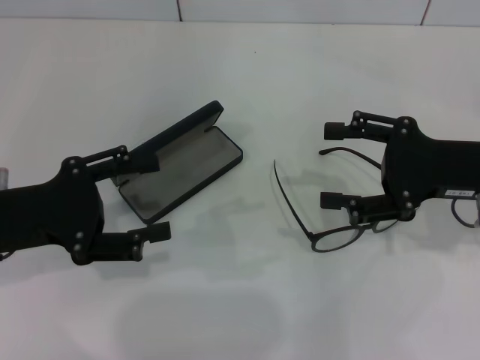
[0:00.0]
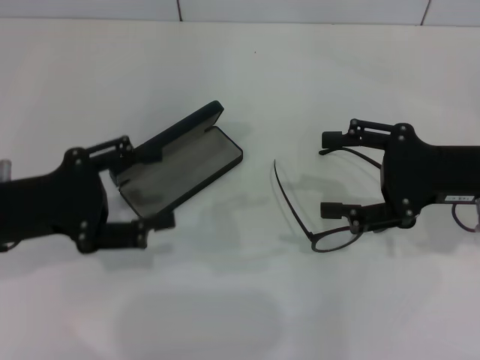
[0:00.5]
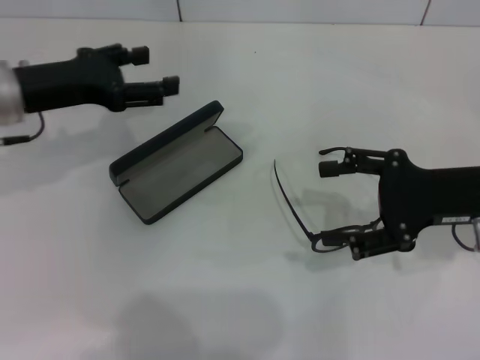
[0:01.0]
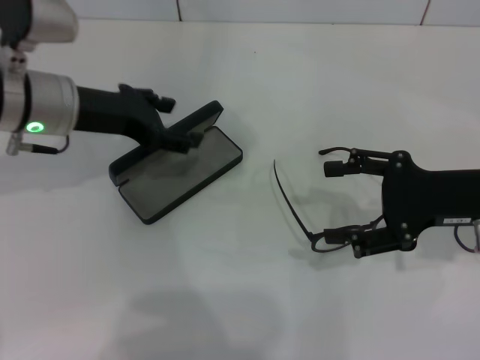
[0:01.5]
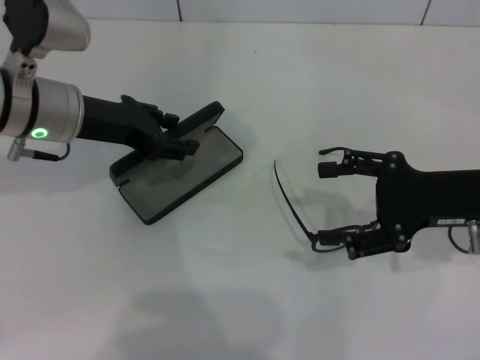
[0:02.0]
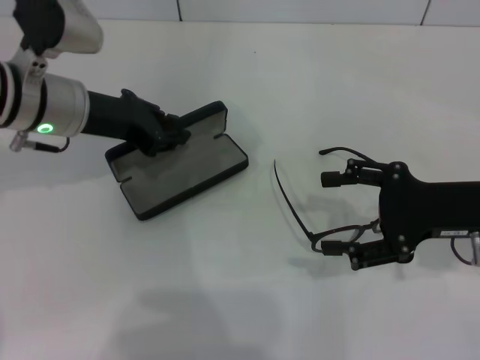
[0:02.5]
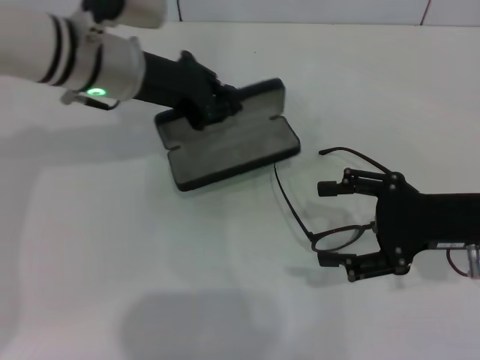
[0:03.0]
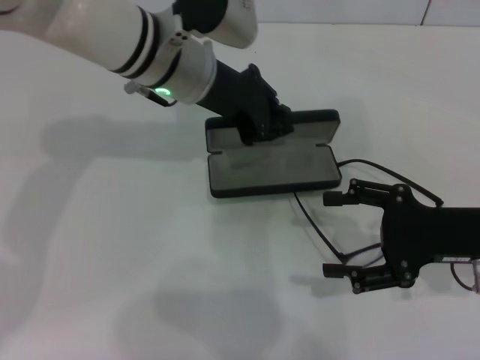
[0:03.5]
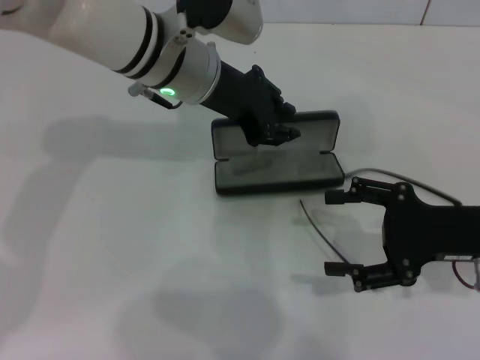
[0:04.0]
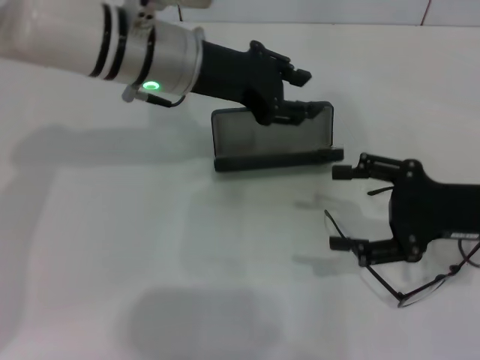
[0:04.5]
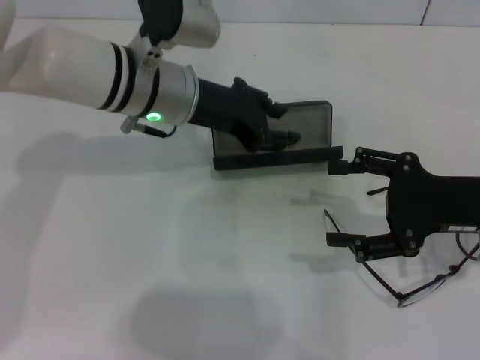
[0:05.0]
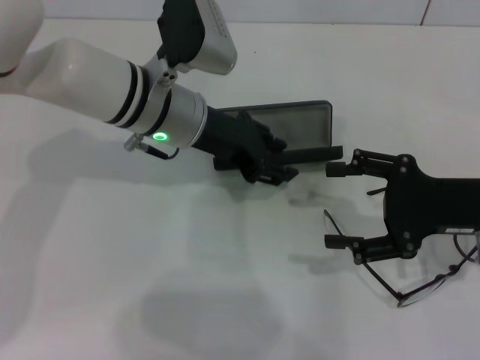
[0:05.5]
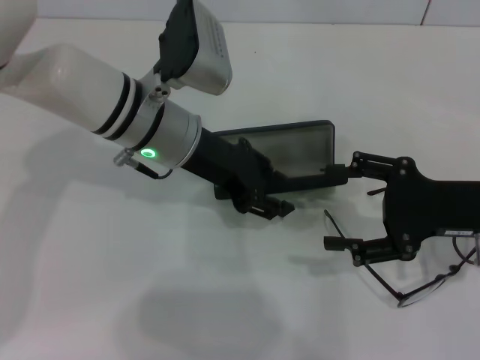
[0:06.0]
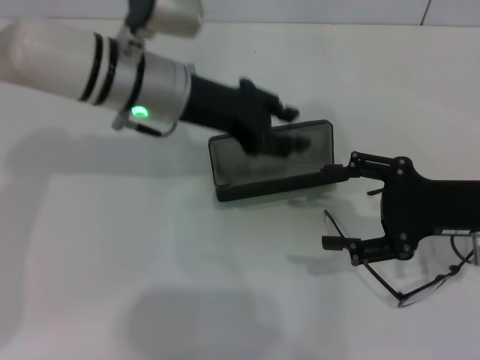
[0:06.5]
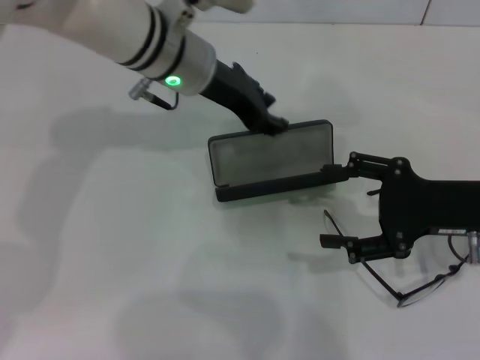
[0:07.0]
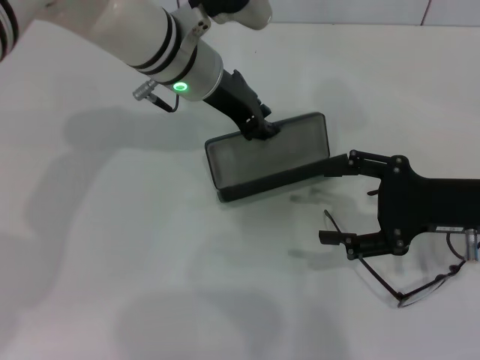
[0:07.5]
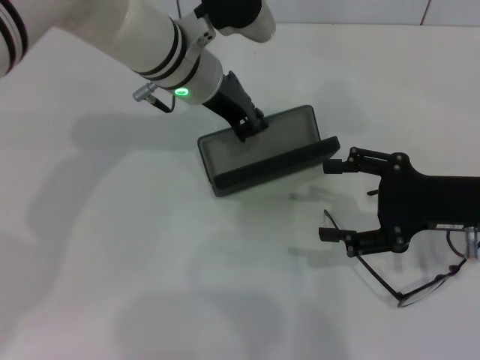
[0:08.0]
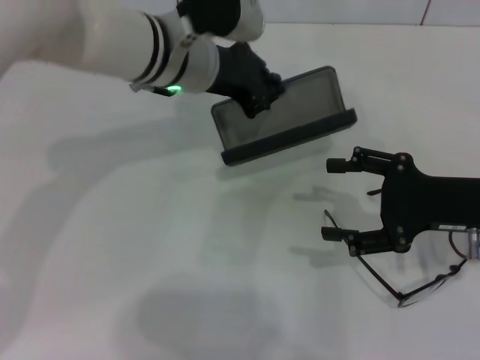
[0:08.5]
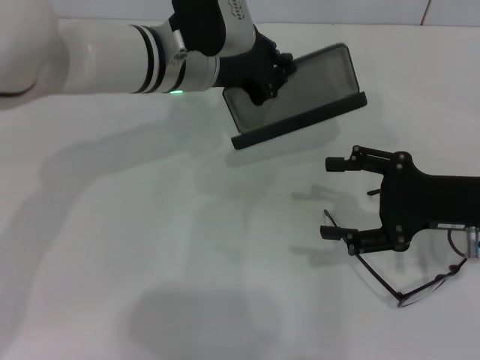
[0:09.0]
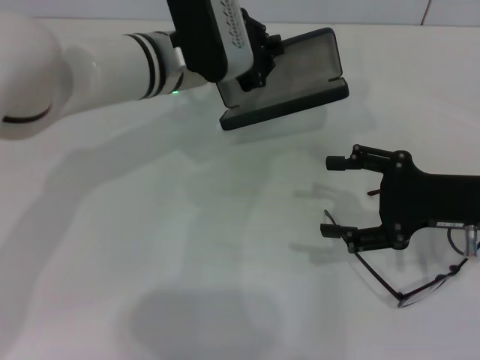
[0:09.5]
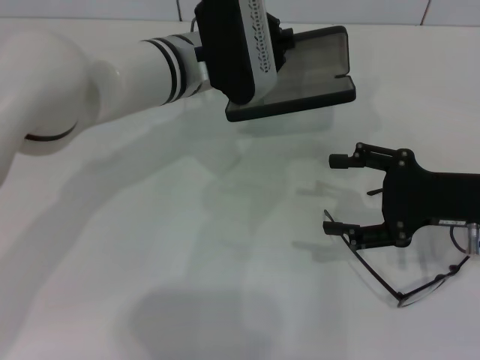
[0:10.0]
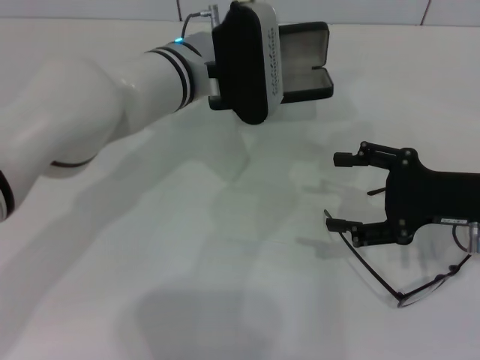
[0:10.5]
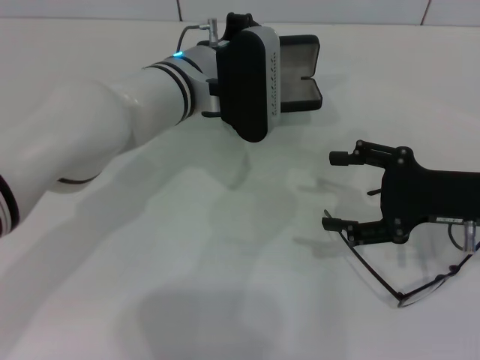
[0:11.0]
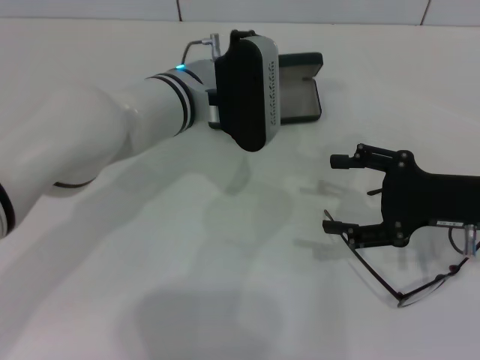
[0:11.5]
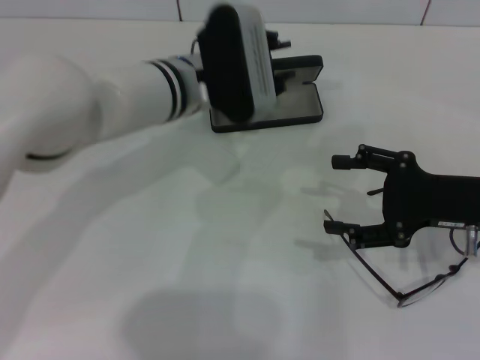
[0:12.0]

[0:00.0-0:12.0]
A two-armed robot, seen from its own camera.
Step, 0:00.0 to 0:02.0: Grab the glasses case with your left hand.
Step, 0:02.5 to 0:04.0: Place the glasses case in the center of the table with your left hand.
Step, 0:04.5 to 0:07.5: Grab the glasses case with your left hand.
Step, 0:08.0 to 0:11.5: Place the glasses case in the center of the table with your left hand.
0:00.0 to 0:02.0: The left gripper moves forward and to the right, about 15 cm.
0:02.0 to 0:04.0: The left gripper heads to the right, covering roughly 15 cm, and closes its fingers.
0:04.0 to 0:06.0: The left gripper ends up roughly 5 cm from where it was.
0:06.0 to 0:08.0: The left gripper is displaced forward by roughly 5 cm, and closes.
0:10.0 to 0:12.0: The left gripper opens.

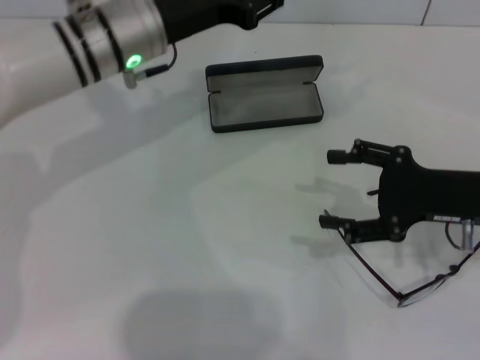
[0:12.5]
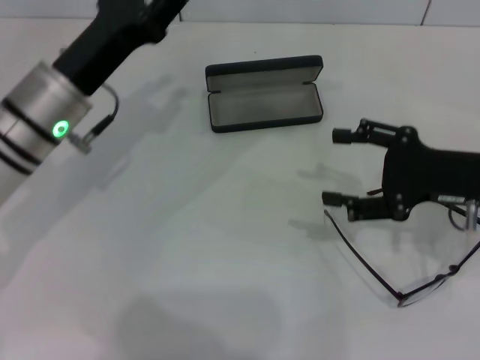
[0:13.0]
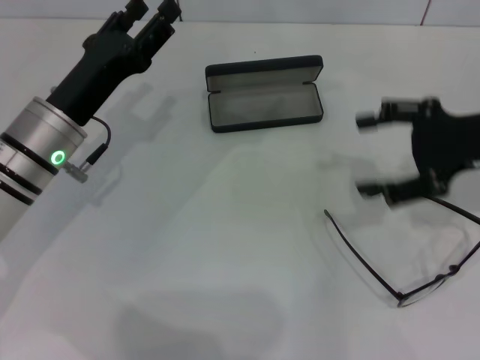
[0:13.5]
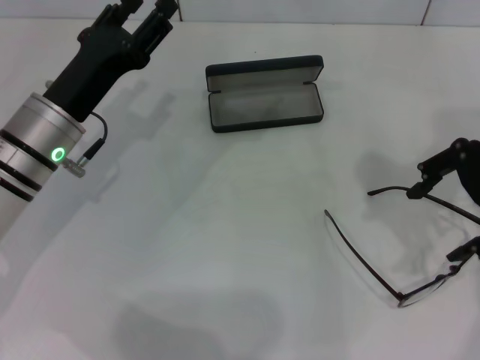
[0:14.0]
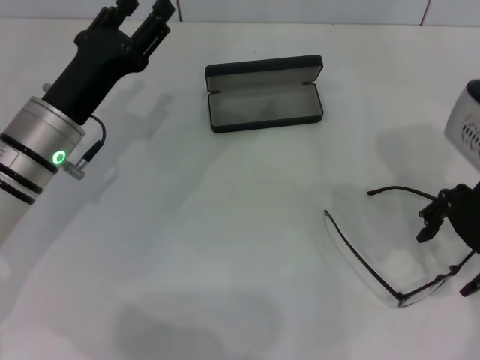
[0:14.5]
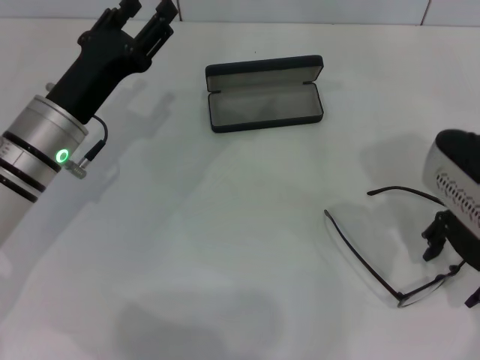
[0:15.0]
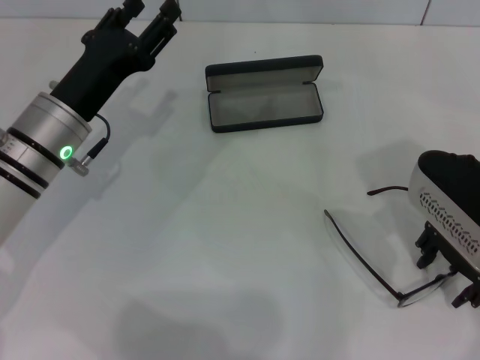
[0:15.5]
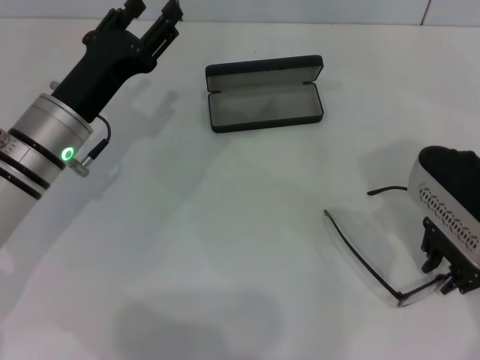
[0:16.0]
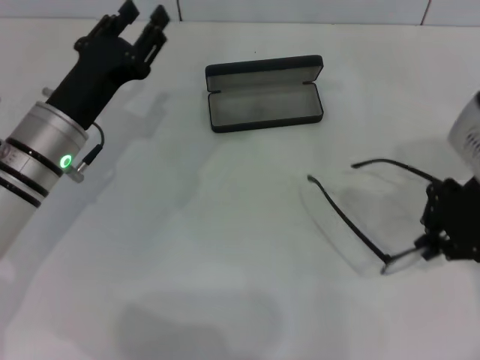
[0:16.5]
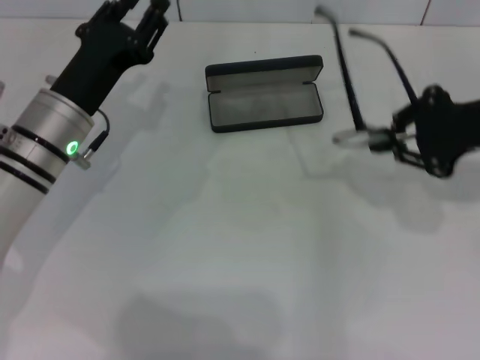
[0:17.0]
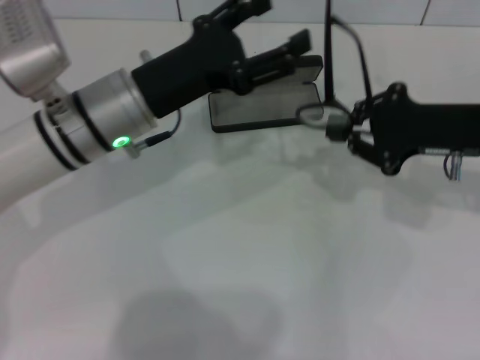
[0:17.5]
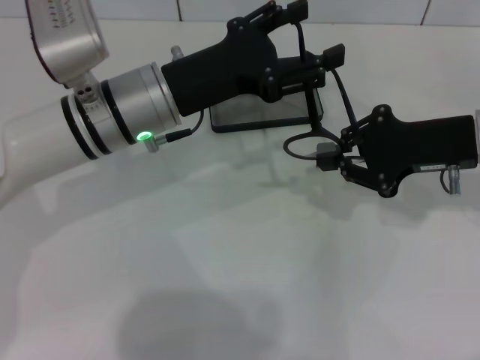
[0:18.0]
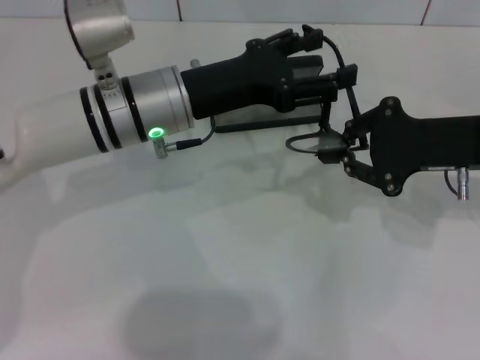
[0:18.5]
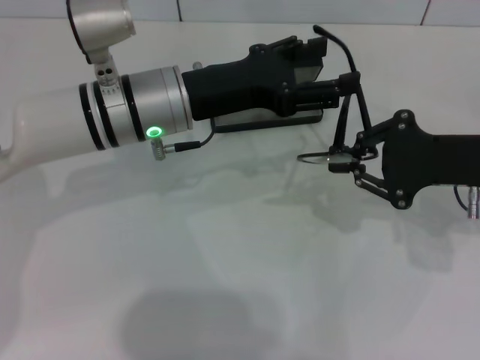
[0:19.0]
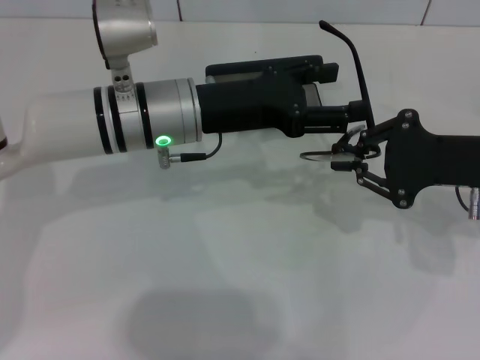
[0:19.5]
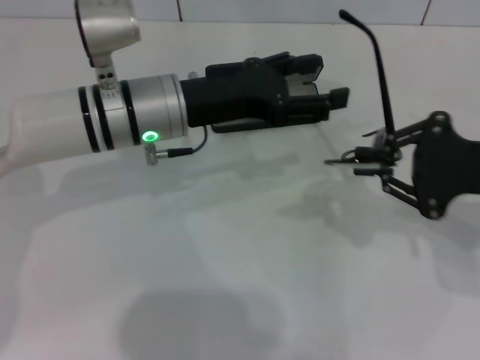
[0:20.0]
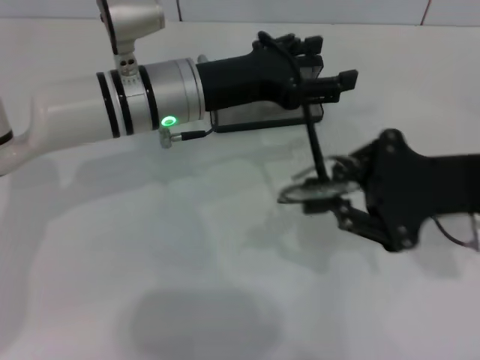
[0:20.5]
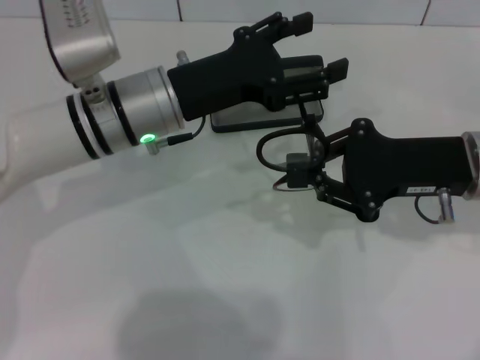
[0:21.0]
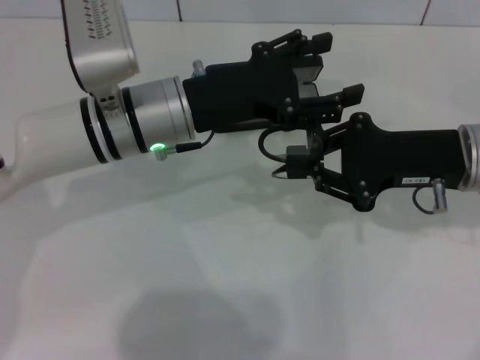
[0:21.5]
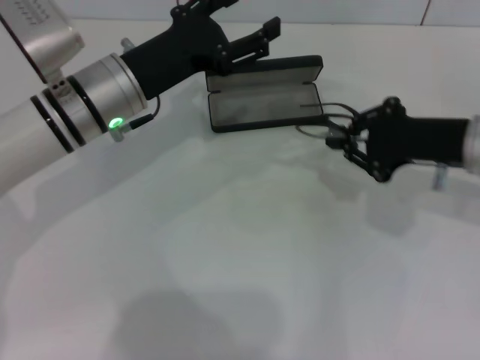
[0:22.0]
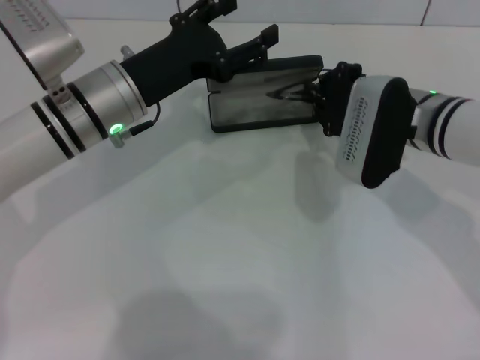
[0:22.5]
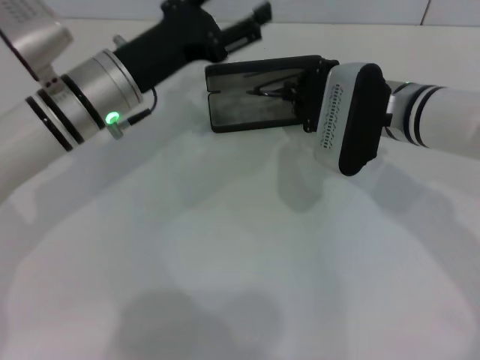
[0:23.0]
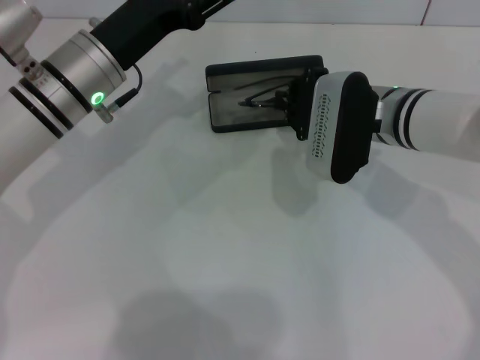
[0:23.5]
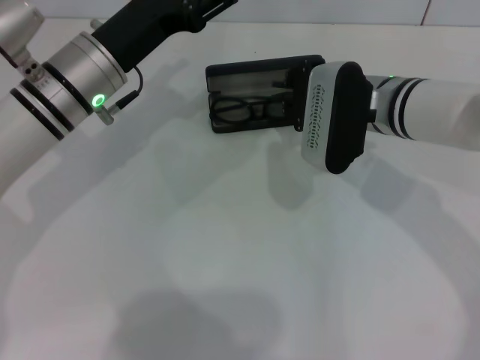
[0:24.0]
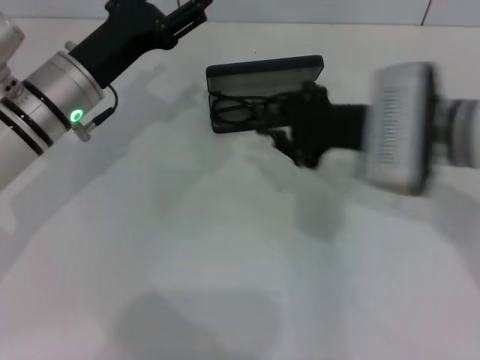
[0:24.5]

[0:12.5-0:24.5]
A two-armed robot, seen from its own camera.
Step, 0:12.5 to 0:16.0: Grab the eyeglass frame with your right hand.
Step, 0:16.5 to 0:21.5: Fold the frame with your left hand.
Step, 0:22.0 to 0:23.5: Put the glasses into the case with your right hand.
0:12.5 to 0:14.5: The left gripper is displaced backward, downward and to the left by some 15 cm. Meanwhile the right gripper travels upward by roughly 10 cm.
0:14.5 to 0:16.5: The right gripper closes up.
0:16.5 to 0:18.5: The right gripper ends up some 5 cm from where it was, while the left gripper is displaced to the right and upward by approximately 10 cm, and opens.
0:20.5 to 0:22.5: The right gripper travels forward and to the left by about 10 cm. The left gripper is displaced to the left by approximately 5 cm.

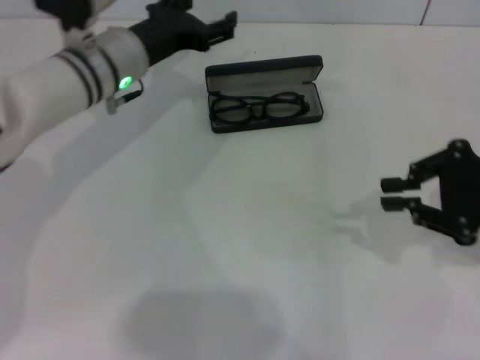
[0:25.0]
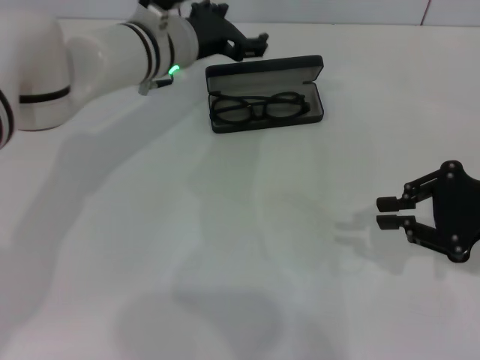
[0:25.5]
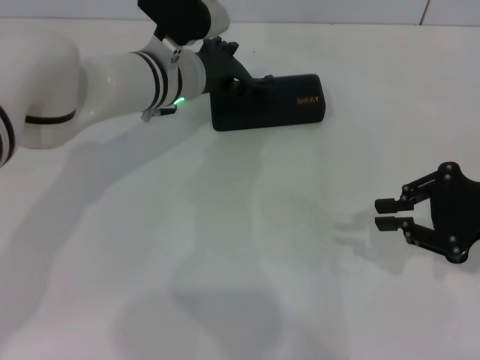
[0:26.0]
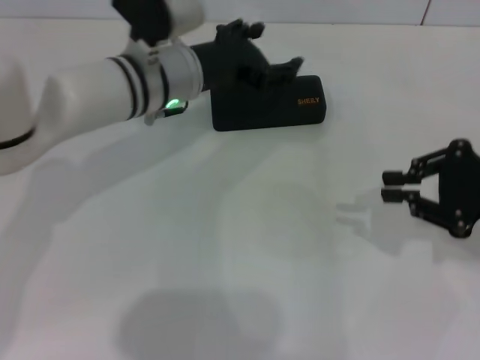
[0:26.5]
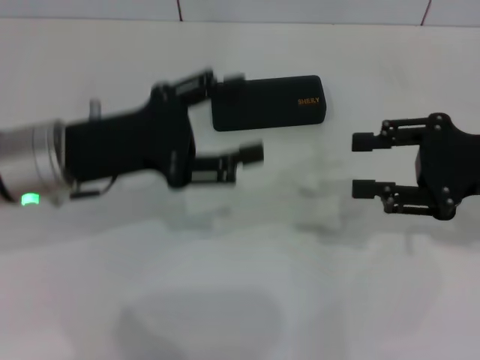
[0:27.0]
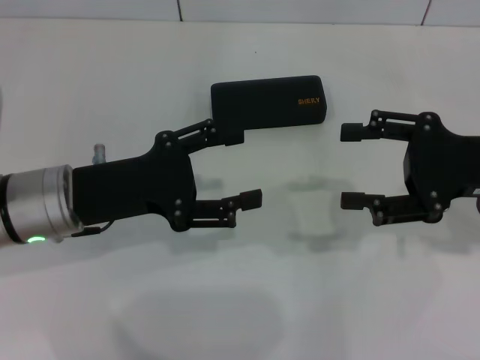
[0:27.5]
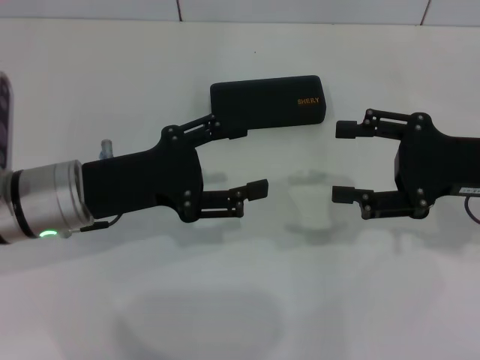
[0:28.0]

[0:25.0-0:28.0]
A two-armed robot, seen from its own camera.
Step, 0:25.0 to 0:26.0: Close the glasses case with your left hand.
0:25.0 to 0:26.5: The left gripper ends up about 5 cm from where it was.
0:26.5 to 0:28.0: The left gripper is displaced backward and to the left by some 15 cm, while the right gripper opens up.
